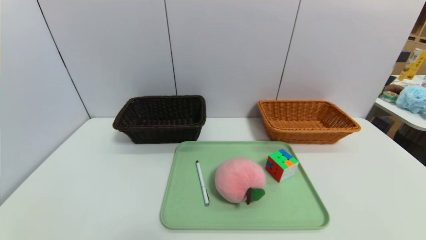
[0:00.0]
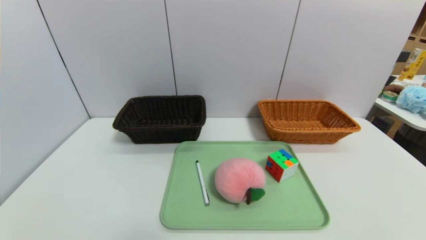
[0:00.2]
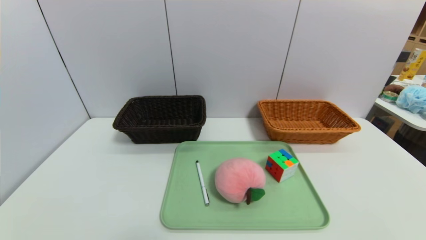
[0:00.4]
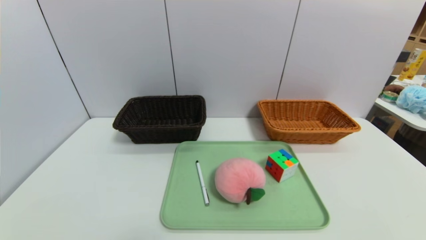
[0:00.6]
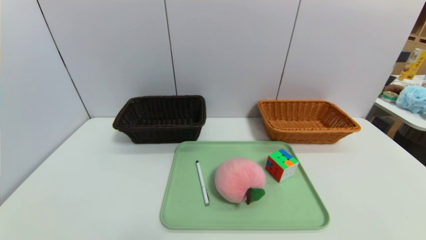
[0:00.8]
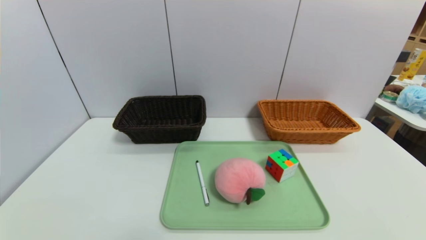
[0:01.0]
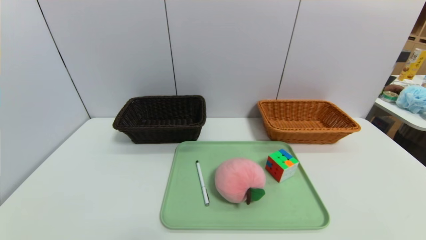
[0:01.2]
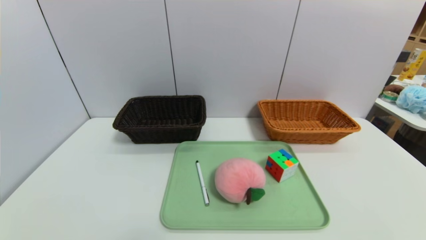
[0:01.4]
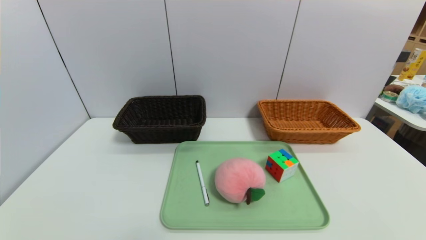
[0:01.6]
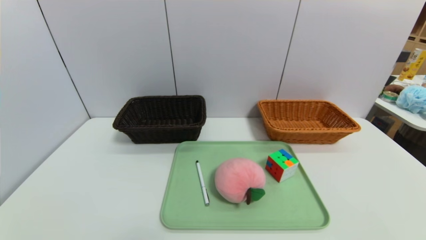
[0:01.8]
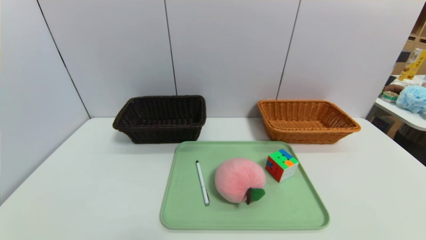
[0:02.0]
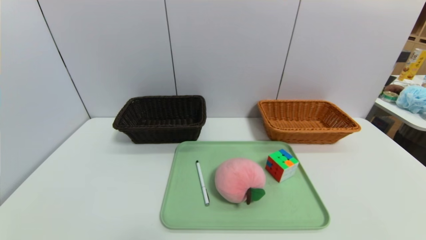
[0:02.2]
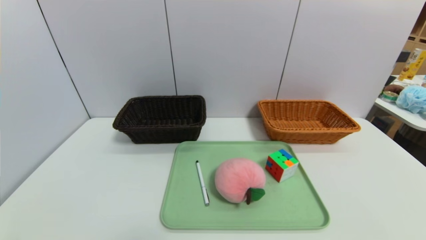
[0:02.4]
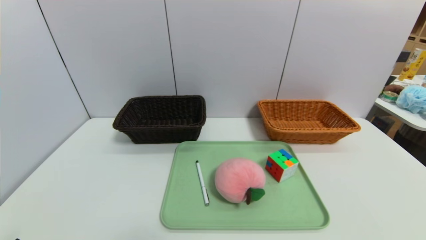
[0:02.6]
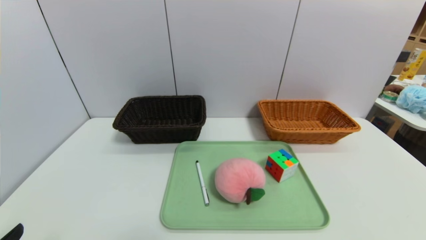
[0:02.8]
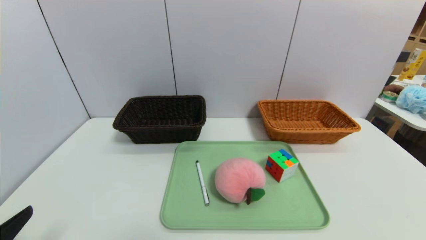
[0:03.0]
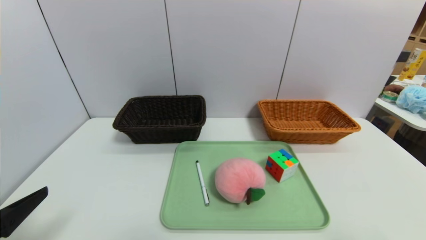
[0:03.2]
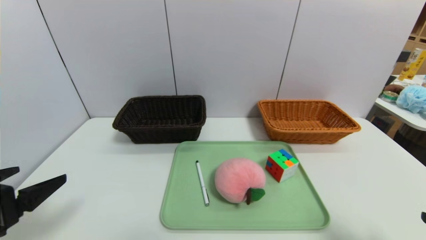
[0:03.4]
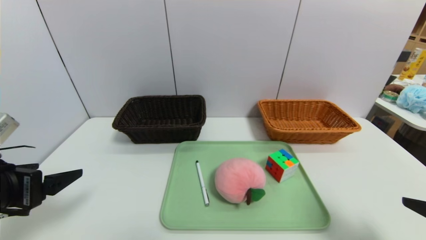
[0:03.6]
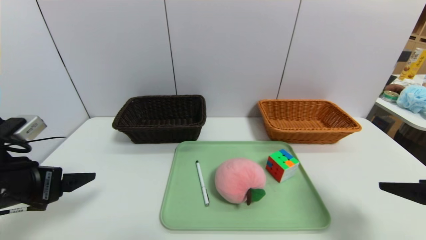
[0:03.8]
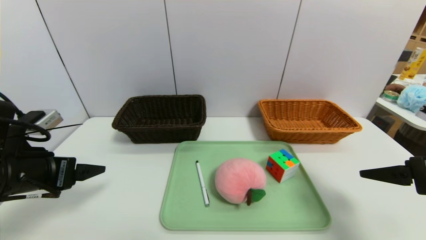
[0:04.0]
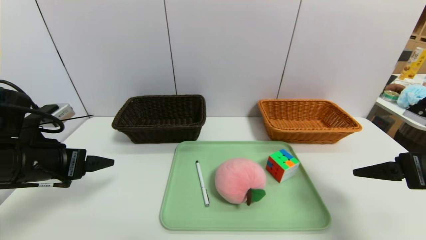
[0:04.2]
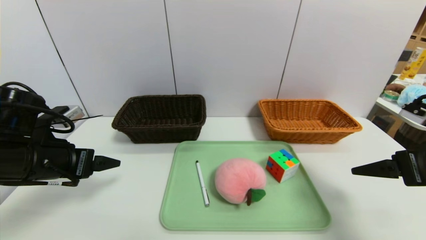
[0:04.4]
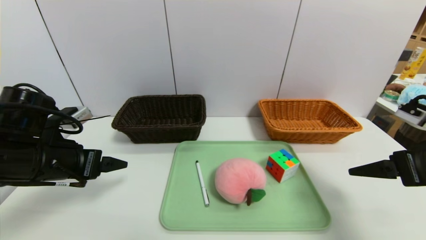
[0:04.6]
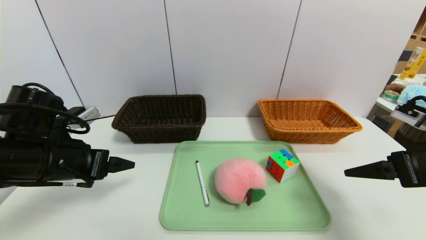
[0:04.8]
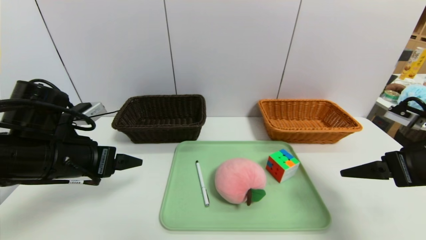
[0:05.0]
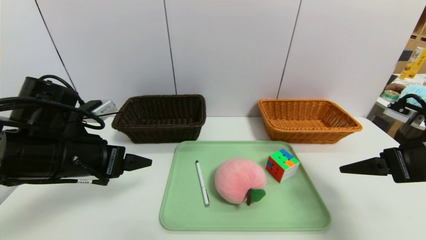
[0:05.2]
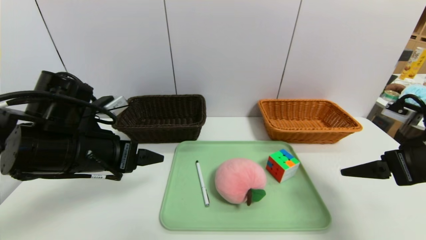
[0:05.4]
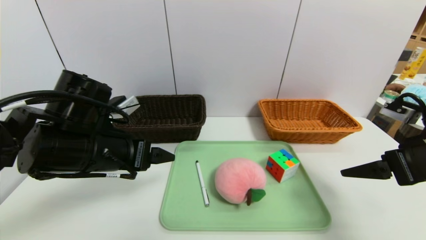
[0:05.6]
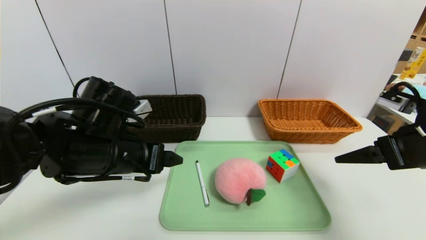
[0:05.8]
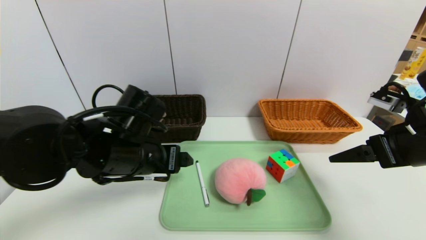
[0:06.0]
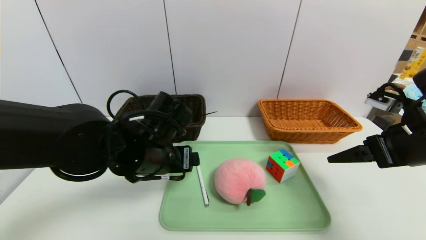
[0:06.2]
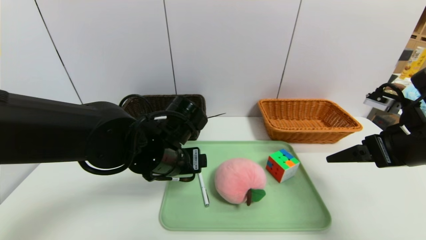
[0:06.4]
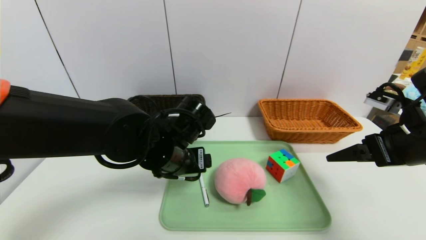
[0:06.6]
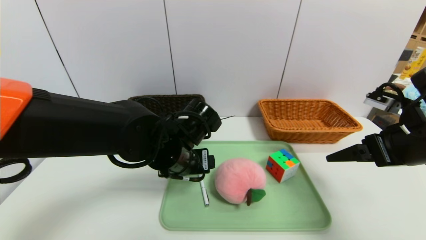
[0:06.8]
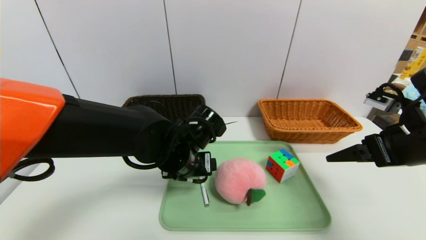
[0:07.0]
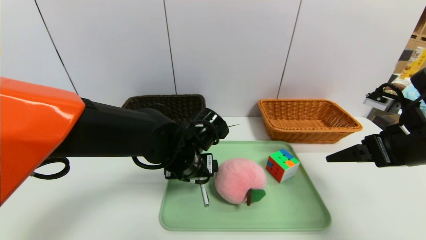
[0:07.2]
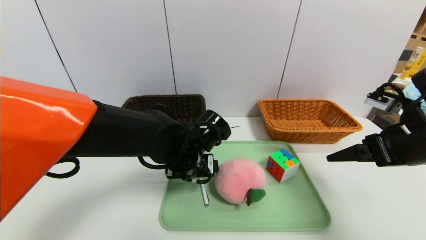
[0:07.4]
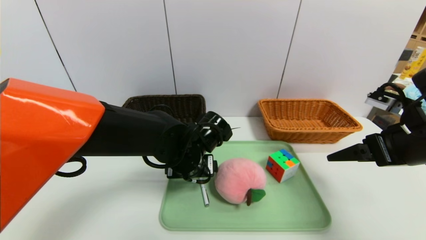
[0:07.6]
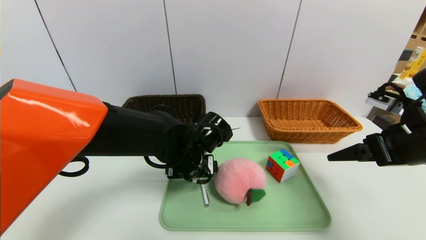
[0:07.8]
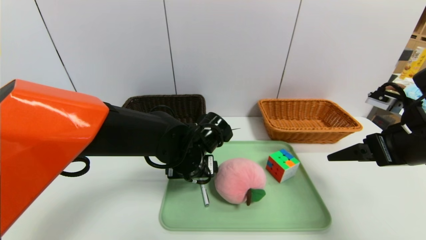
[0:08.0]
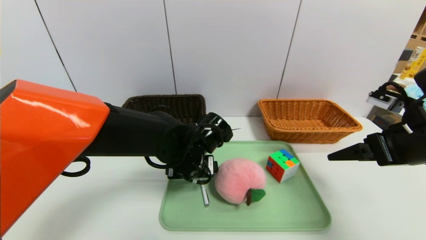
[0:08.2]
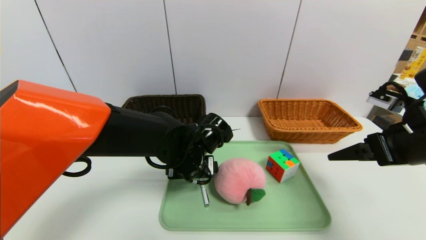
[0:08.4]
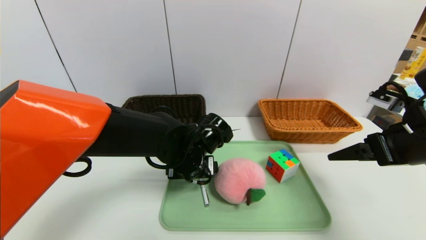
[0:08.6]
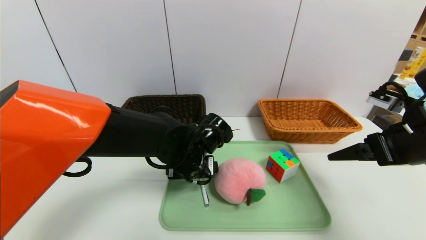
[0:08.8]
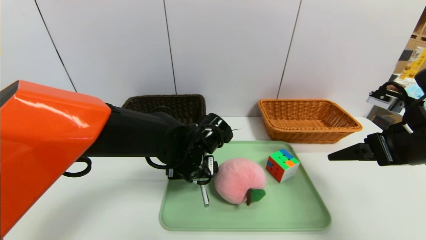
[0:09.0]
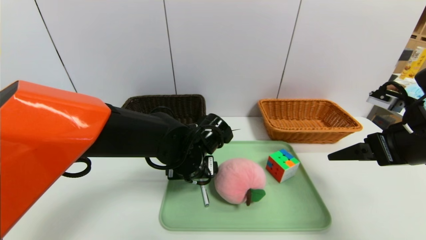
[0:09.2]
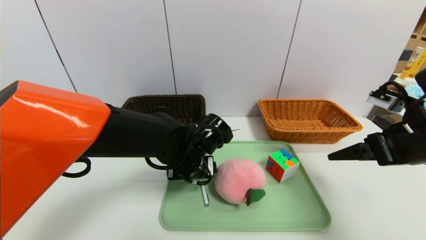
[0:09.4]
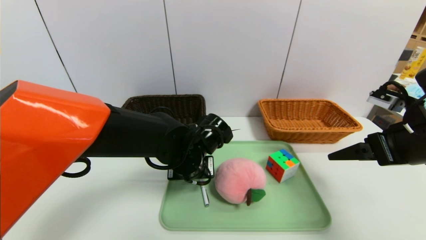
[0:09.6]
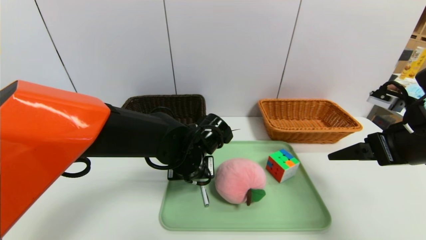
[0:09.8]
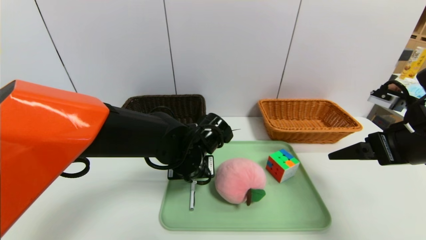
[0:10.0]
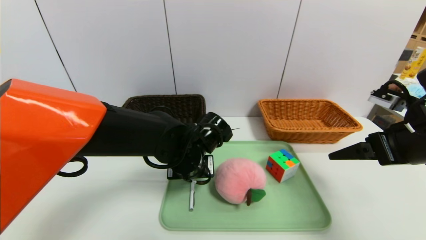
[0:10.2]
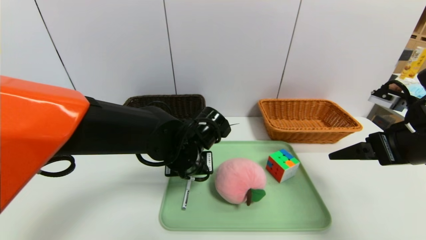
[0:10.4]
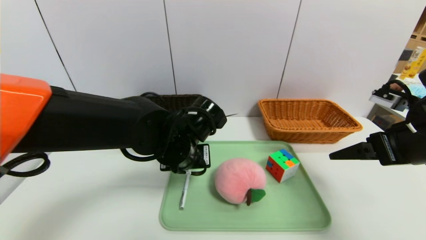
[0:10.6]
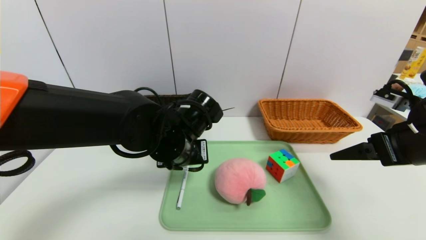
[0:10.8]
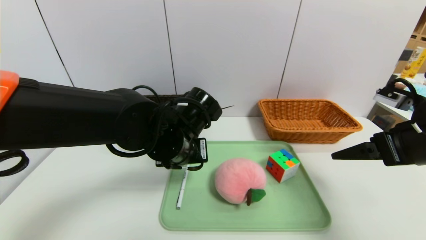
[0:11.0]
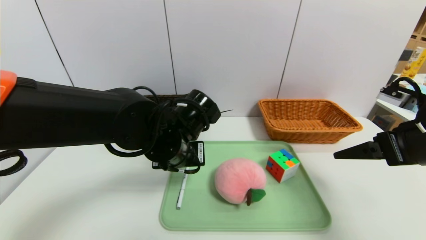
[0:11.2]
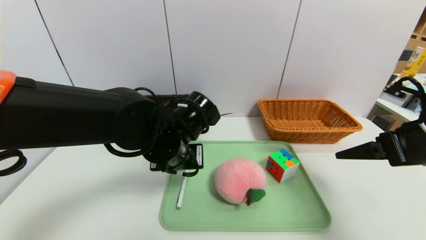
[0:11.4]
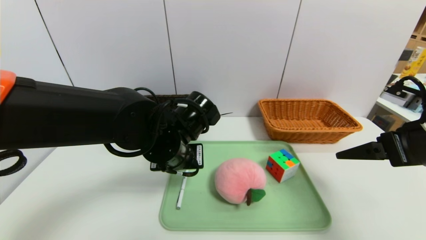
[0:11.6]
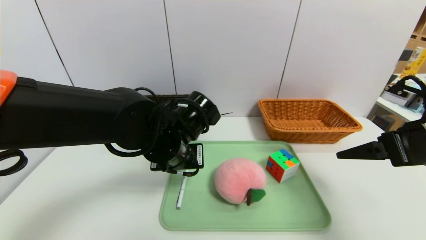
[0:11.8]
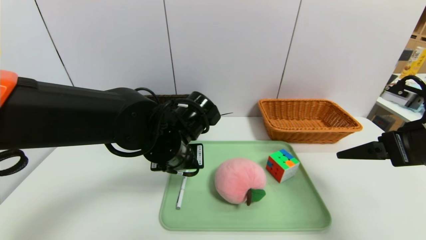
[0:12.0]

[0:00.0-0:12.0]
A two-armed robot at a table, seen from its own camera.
Task of the whole recording: place the food in the right basket with the right gripper, and place the non food items in the left basket with the left gripper.
0.0 to 1.6 s: Both grippers stay put.
3.0 to 4.4 s: The grippers both shift forward by approximately 20 cm.
4.4 to 6.0 s: The left gripper goes about 15 cm to the right.
6.0 to 7.6 s: The left gripper moves to the right and downward, about 10 cm.
7.6 to 9.0 s: Both grippers stay put.
9.0 to 10.4 s: The left gripper closes up.
10.4 to 12.0 s: The grippers make only small movements.

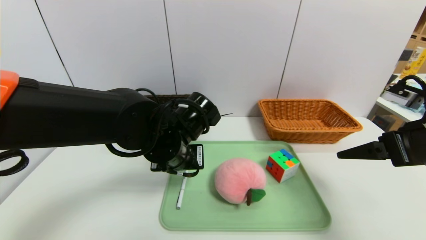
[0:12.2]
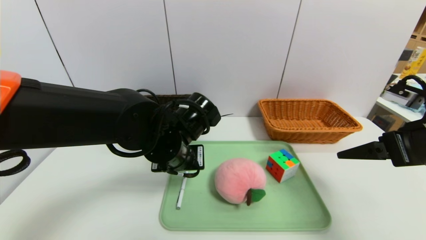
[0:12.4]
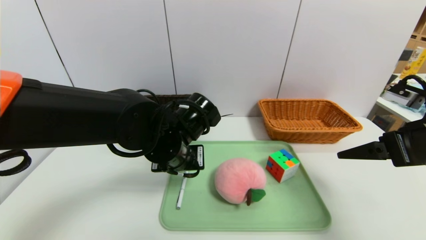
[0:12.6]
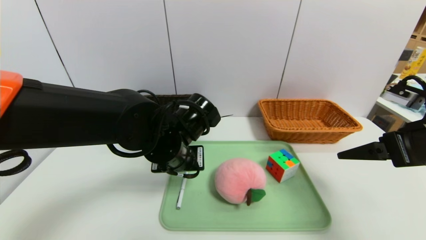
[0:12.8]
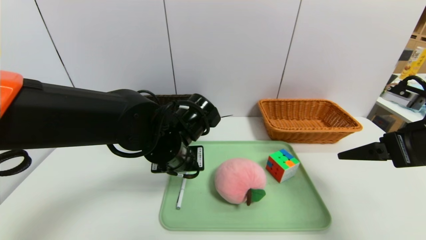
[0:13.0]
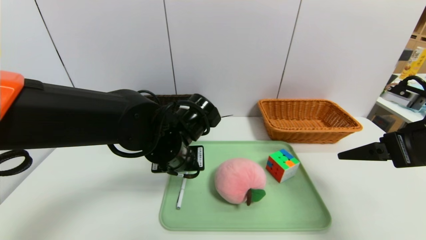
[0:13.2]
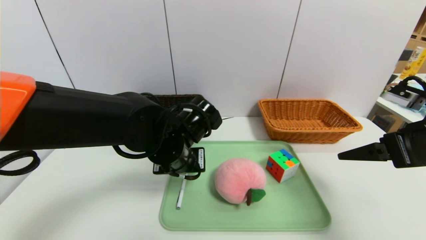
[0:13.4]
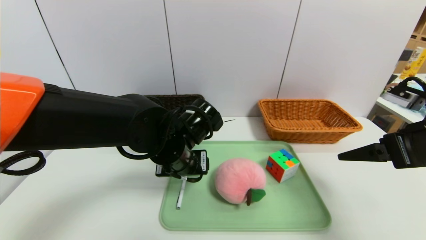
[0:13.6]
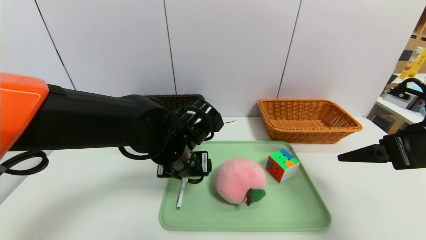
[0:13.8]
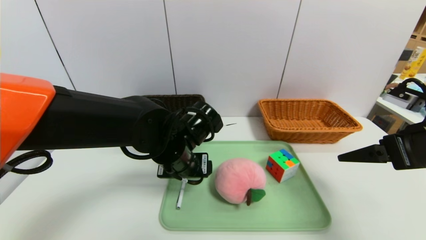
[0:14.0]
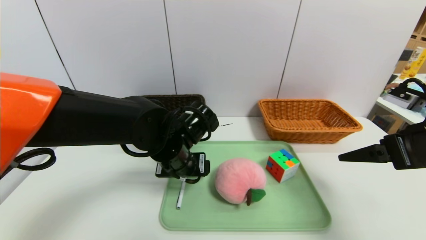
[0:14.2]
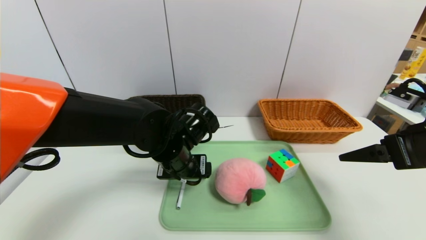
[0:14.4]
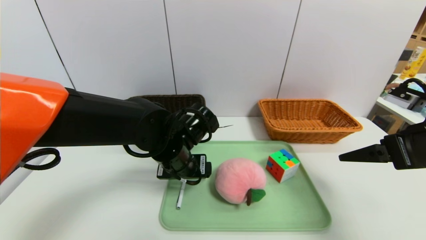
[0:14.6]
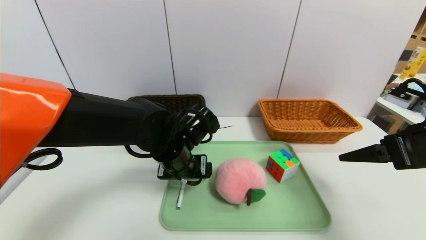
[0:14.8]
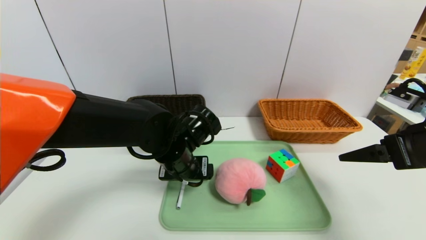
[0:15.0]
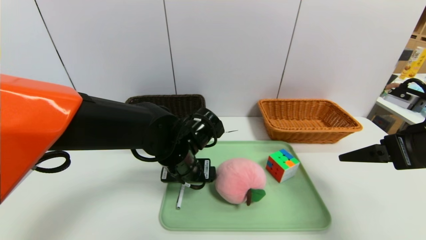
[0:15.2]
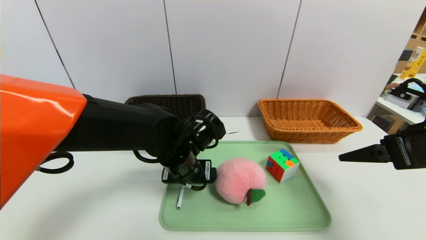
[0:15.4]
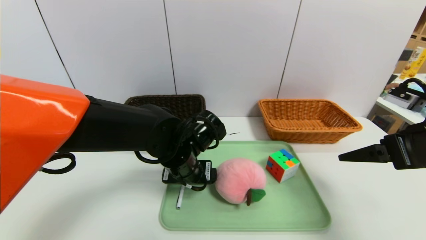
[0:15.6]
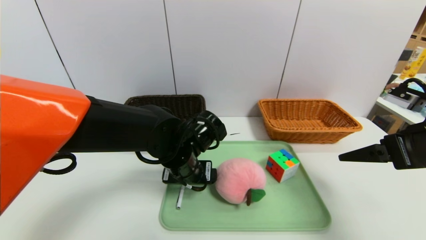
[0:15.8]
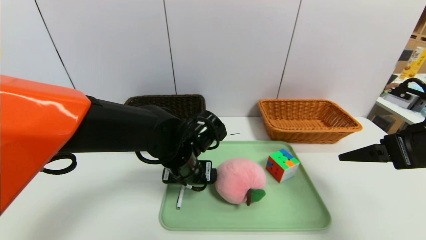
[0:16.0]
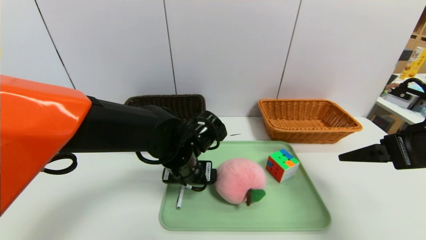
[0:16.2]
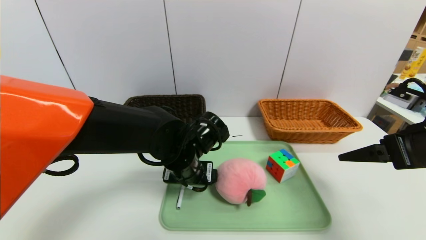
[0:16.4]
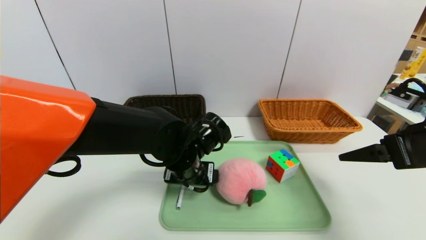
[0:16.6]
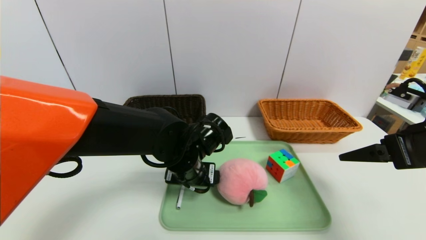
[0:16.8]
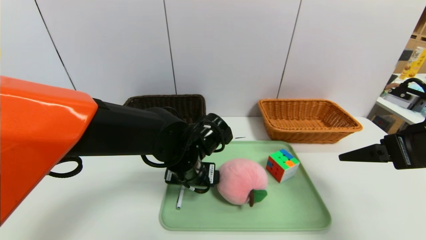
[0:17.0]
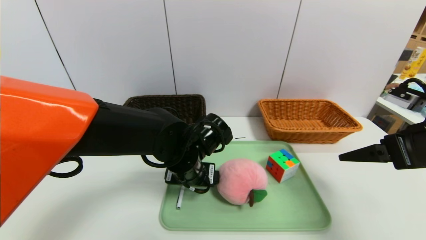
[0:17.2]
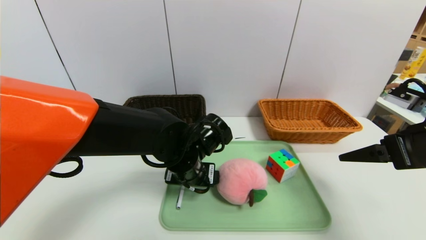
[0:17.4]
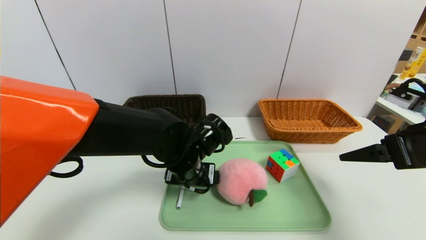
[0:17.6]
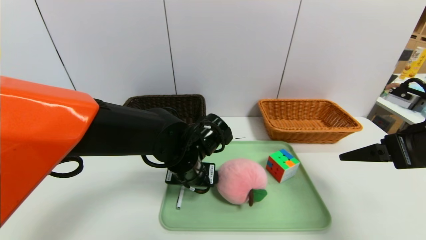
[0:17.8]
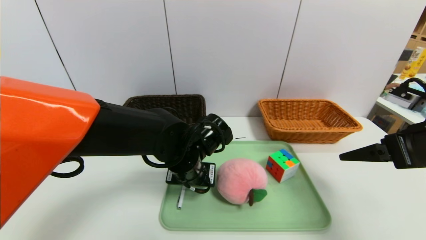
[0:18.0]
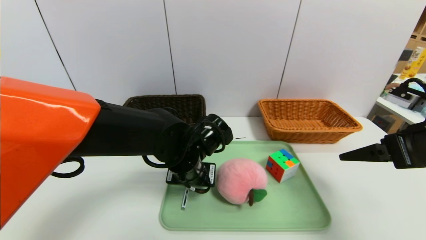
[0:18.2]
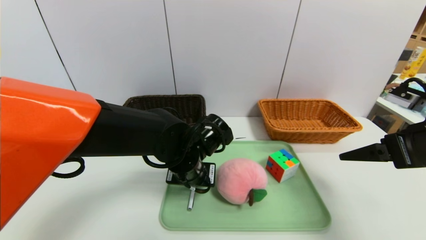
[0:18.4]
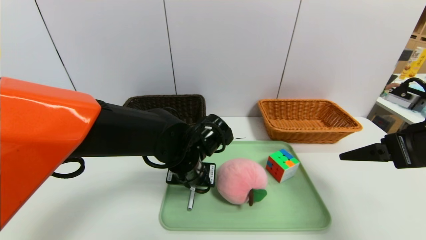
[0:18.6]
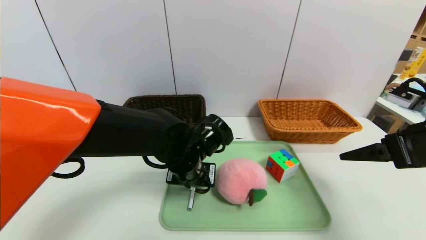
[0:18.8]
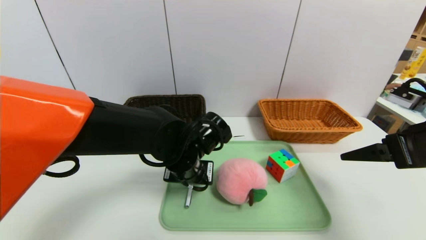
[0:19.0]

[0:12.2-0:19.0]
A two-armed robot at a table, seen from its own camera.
Task of the whole recording: place the food in the right basket with the right gripper, and place the non food items in the left basket with the left gripper.
12.2 to 13.6 s: The left gripper opens.
13.6 to 15.0 s: There are only small adjustments of the grippers.
15.0 to 16.2 s: The two grippers keep their place.
16.2 to 17.6 s: Both grippers stay put.
17.6 to 19.0 s: The left gripper closes its fingers.
